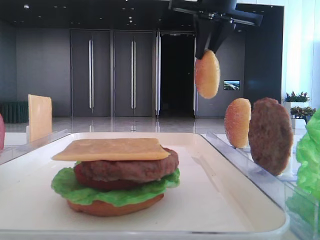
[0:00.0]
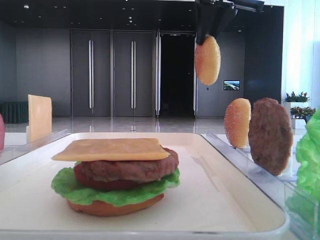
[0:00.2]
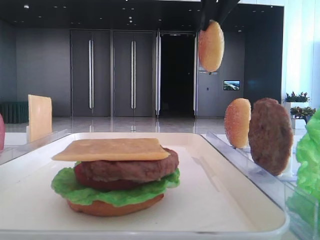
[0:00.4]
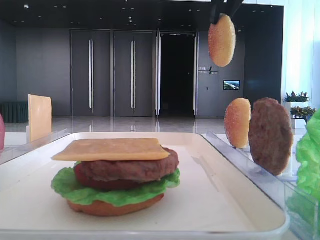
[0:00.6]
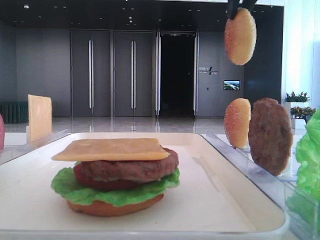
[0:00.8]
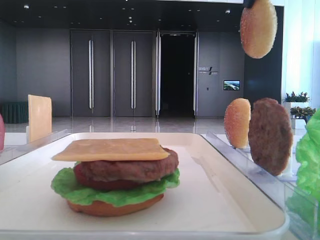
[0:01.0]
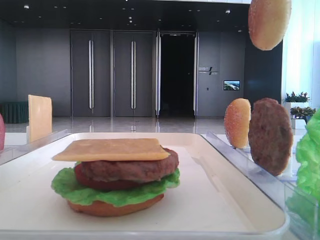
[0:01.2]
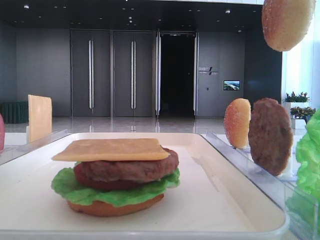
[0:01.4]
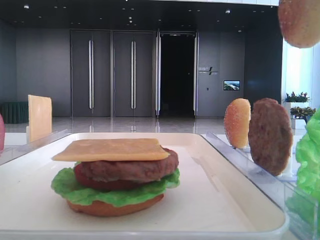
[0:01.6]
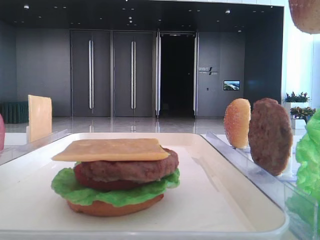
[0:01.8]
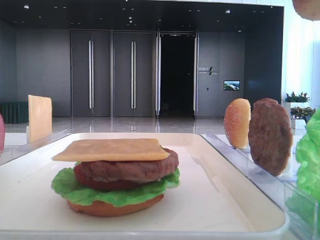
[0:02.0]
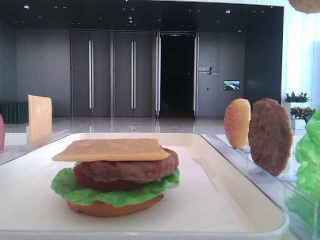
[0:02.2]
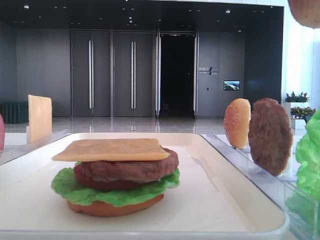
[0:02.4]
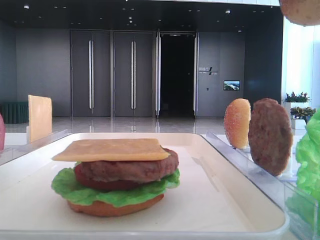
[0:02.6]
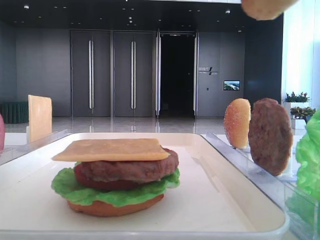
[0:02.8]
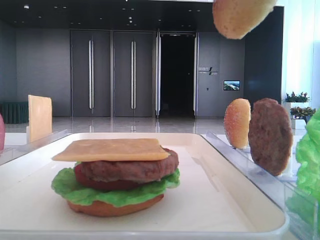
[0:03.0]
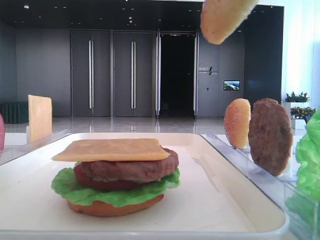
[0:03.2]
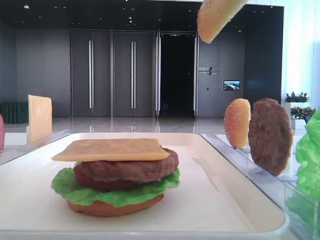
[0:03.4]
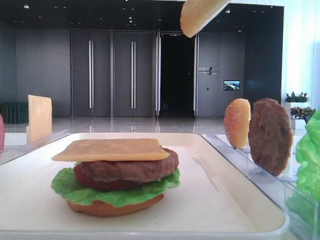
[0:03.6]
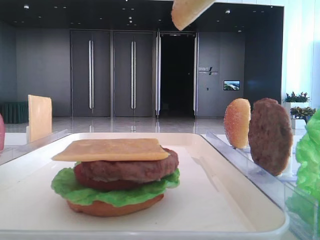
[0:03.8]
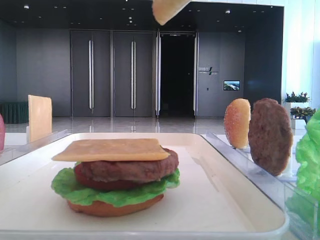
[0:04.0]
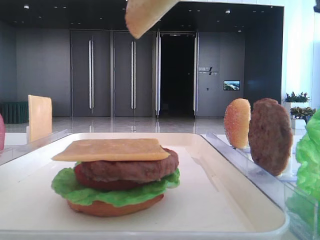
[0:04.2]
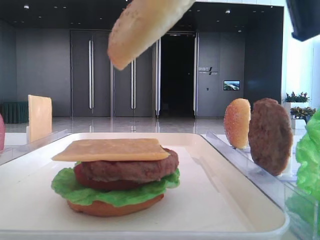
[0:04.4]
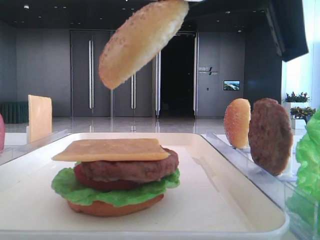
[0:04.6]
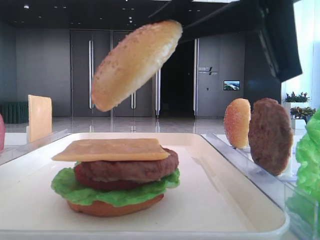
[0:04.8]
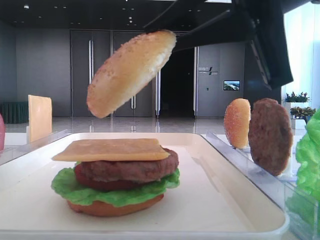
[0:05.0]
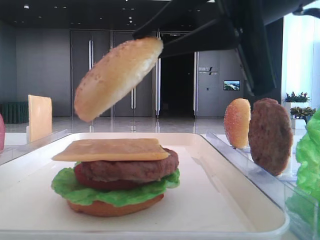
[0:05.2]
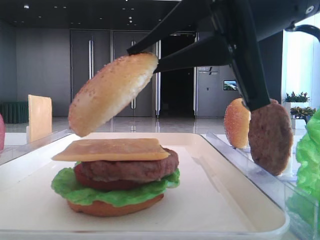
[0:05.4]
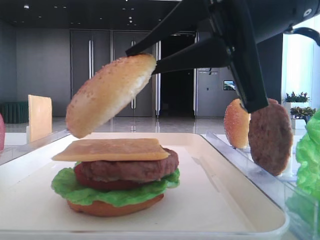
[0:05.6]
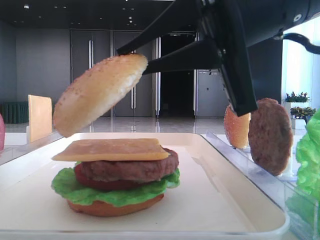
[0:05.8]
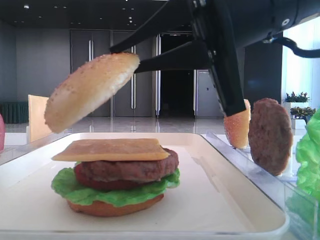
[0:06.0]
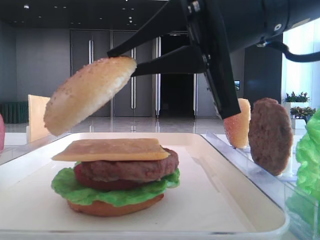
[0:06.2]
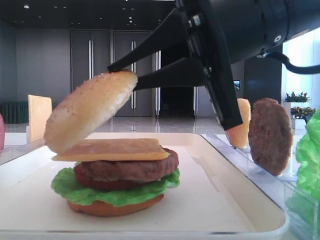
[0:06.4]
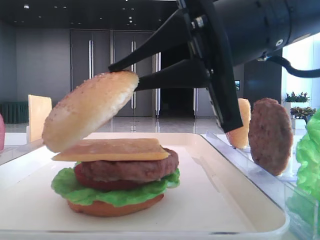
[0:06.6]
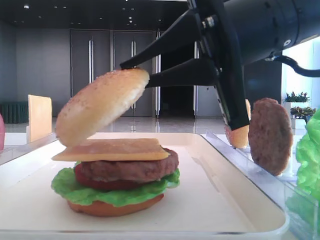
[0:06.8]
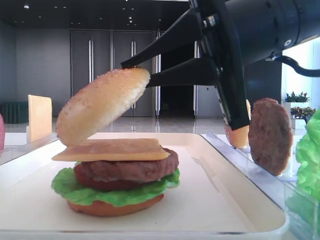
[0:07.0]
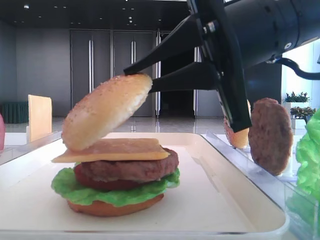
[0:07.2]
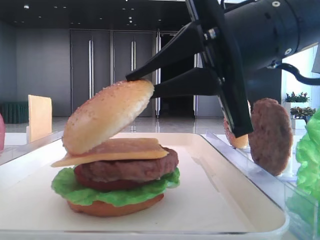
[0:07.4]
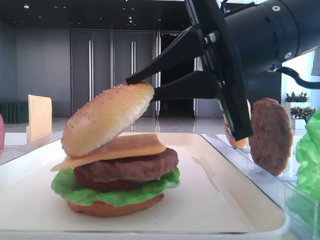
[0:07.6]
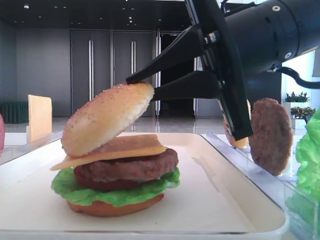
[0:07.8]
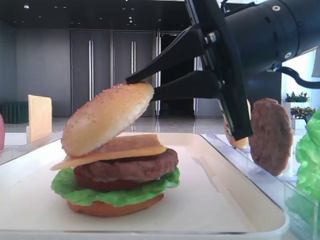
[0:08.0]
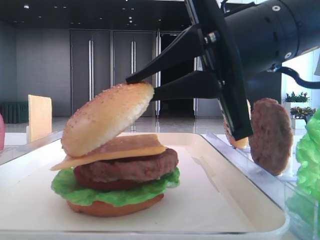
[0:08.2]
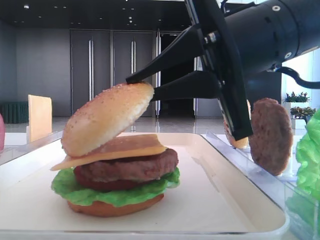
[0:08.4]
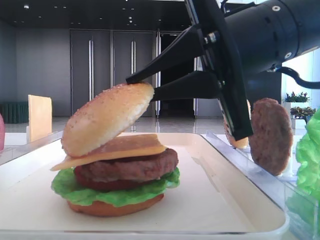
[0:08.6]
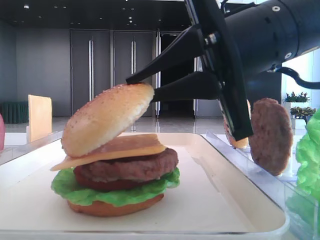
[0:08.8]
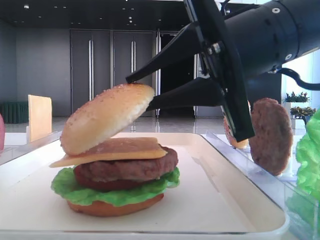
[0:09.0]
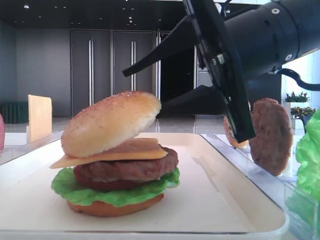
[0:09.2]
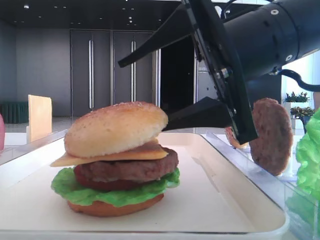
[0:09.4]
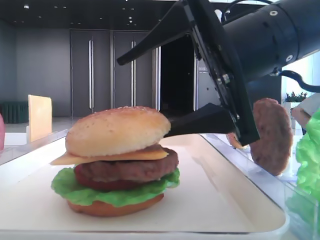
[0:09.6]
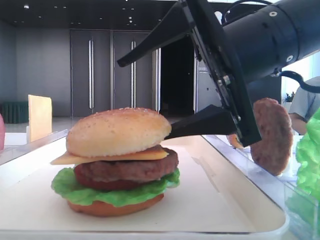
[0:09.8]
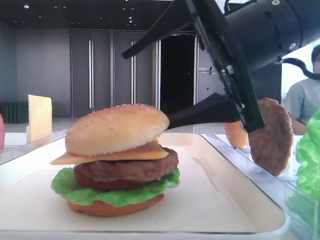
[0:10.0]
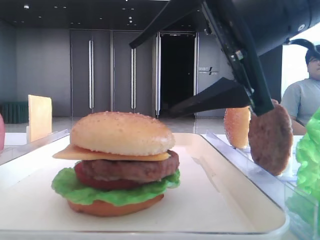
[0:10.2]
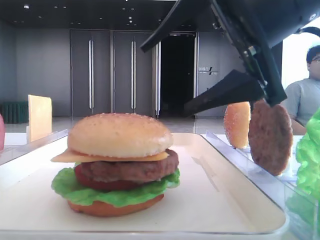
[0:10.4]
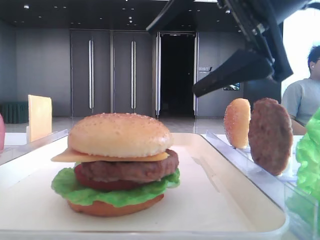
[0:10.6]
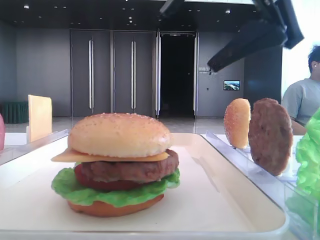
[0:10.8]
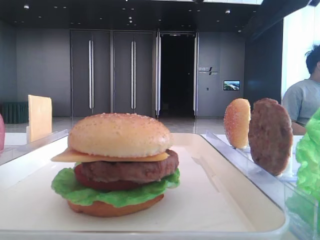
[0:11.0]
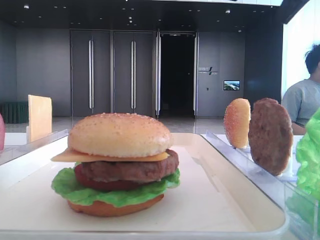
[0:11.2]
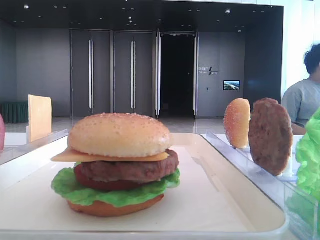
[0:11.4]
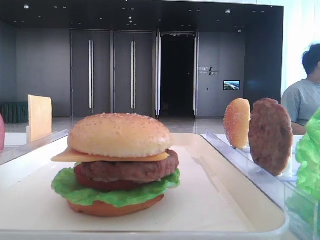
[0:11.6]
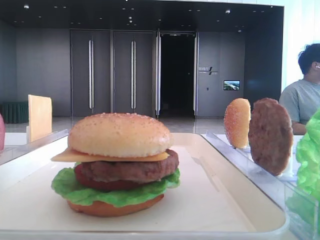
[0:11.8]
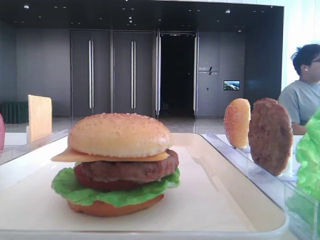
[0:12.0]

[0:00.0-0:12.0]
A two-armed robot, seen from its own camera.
Step, 0:00.0 to 0:10.4: Place the top bread slice on the cheese with the right hand.
0:00.0 to 0:01.6: The right gripper heads backward, covering some 20 cm.
0:01.6 to 0:03.0: The right gripper travels backward by about 10 cm.
0:03.0 to 0:04.4: The right gripper shifts about 10 cm downward.
0:04.4 to 0:06.0: The right gripper moves downward, roughly 5 cm.
0:06.0 to 0:07.6: There are only small adjustments of the grippers.
0:07.6 to 0:09.0: Both grippers stay about where they are.
0:09.0 to 0:10.4: The right gripper opens.
0:10.4 to 0:12.0: The right gripper shifts about 25 cm to the right and upward.

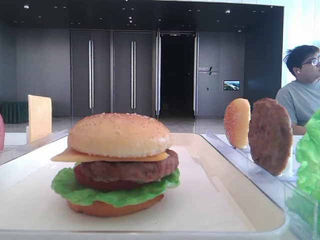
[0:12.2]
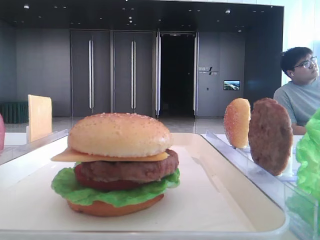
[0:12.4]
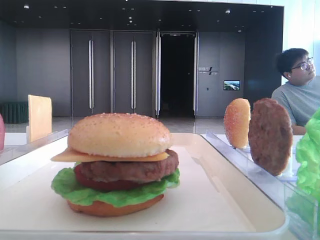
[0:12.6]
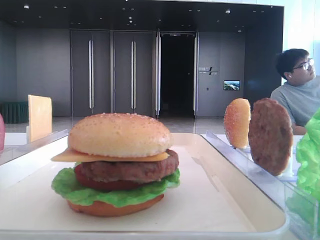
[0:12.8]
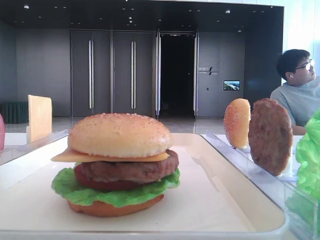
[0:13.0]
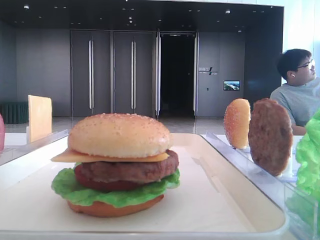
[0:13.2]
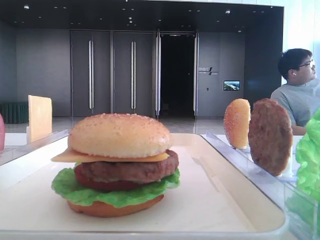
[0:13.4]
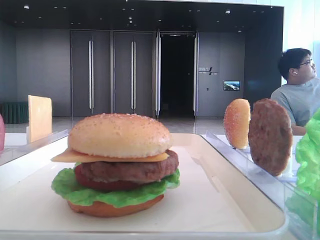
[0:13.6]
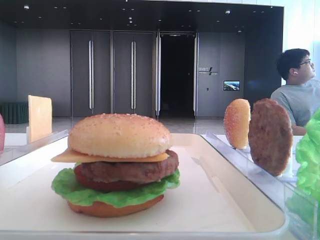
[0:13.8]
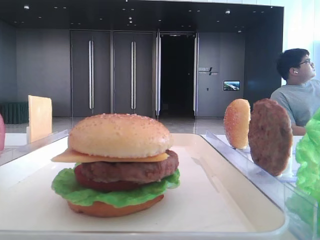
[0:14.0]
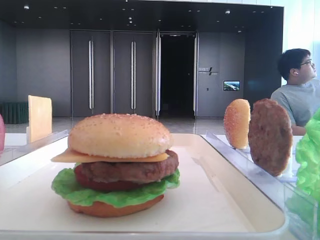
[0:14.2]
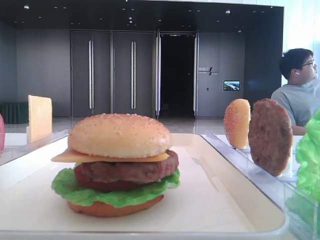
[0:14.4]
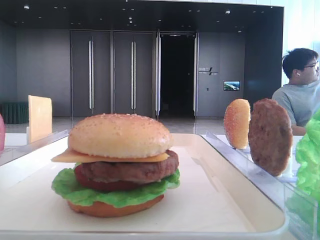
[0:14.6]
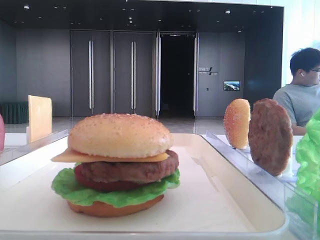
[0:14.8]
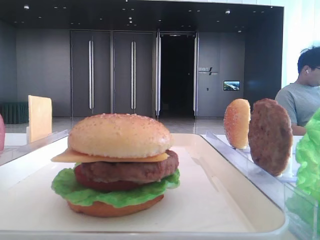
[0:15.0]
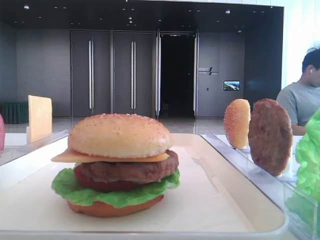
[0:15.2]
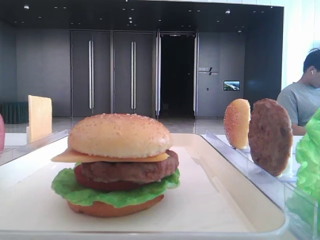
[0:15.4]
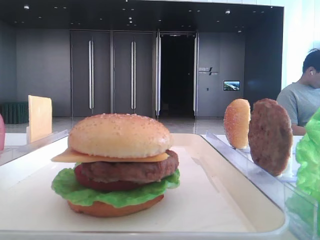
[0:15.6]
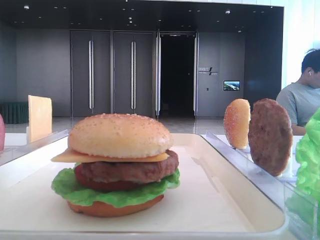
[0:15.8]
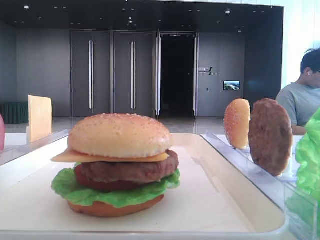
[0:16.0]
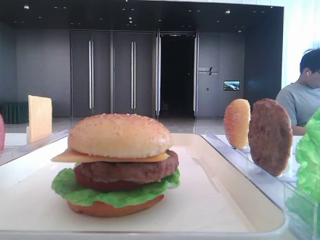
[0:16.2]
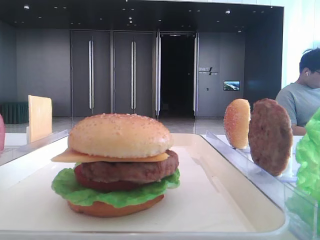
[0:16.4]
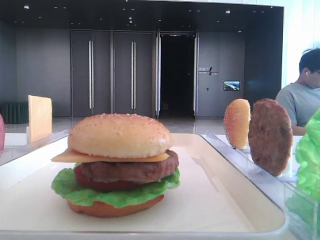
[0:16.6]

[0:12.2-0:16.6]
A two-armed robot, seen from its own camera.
0:12.2 to 0:13.6: The right gripper goes about 25 cm backward.
0:13.6 to 0:15.2: The right gripper travels downward by roughly 15 cm.
0:15.2 to 0:16.6: Neither gripper changes place.

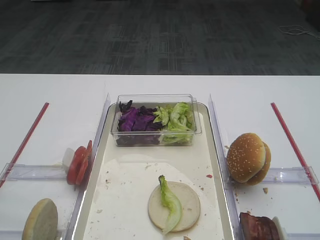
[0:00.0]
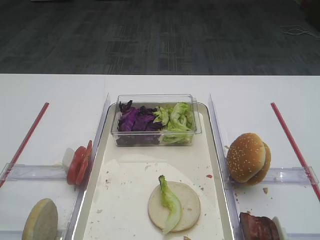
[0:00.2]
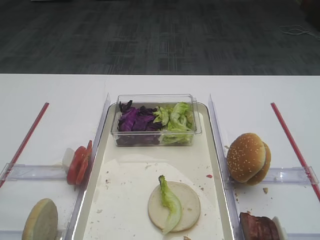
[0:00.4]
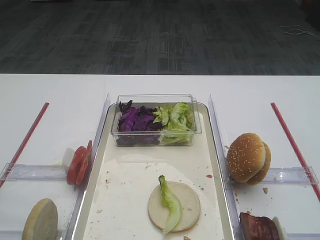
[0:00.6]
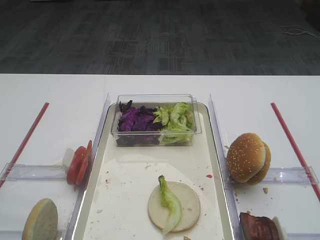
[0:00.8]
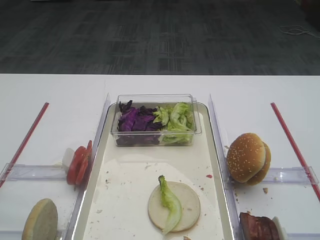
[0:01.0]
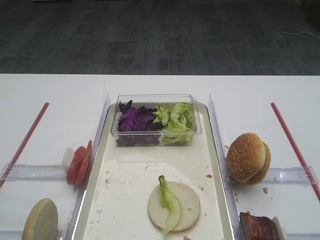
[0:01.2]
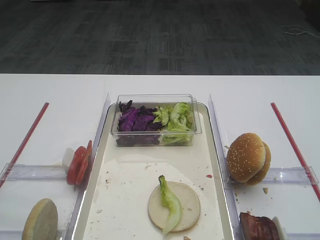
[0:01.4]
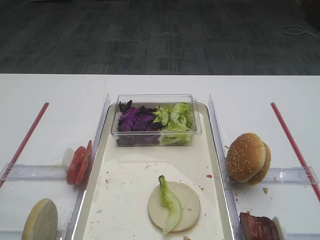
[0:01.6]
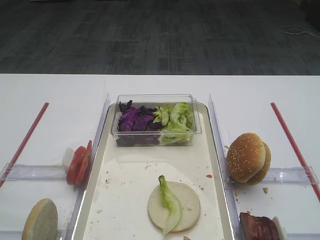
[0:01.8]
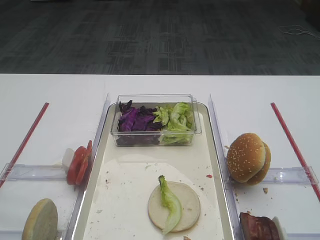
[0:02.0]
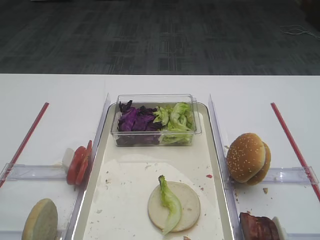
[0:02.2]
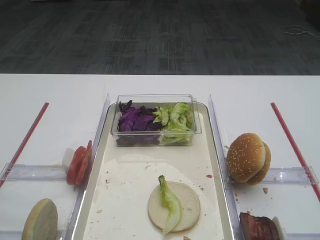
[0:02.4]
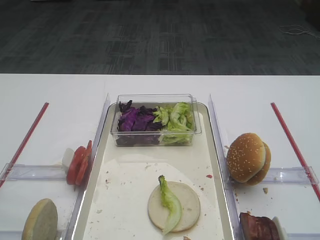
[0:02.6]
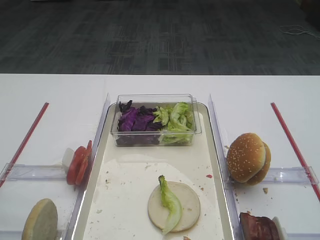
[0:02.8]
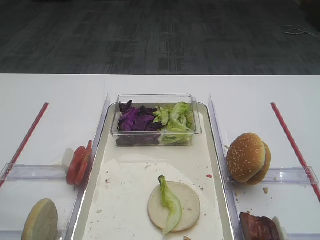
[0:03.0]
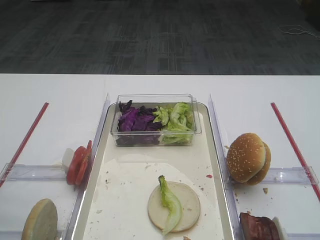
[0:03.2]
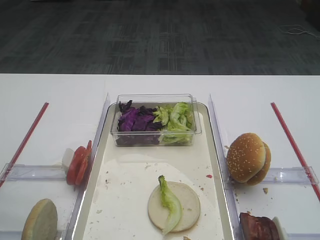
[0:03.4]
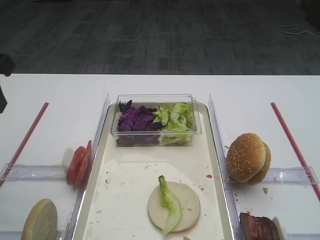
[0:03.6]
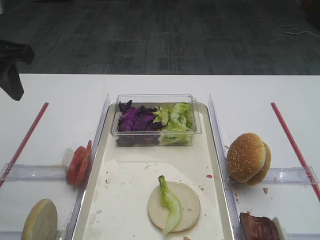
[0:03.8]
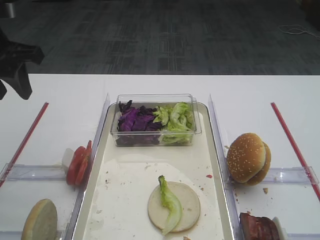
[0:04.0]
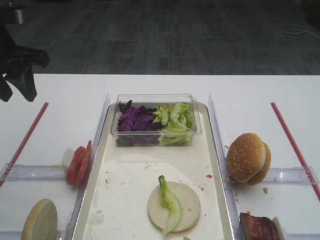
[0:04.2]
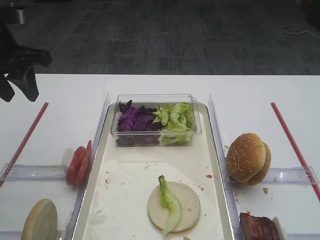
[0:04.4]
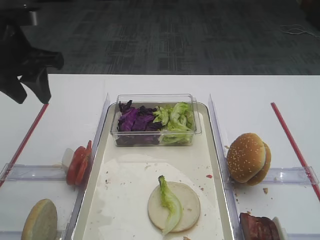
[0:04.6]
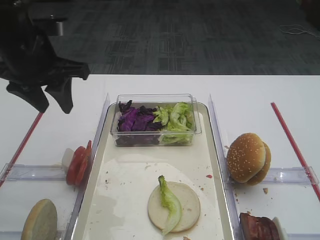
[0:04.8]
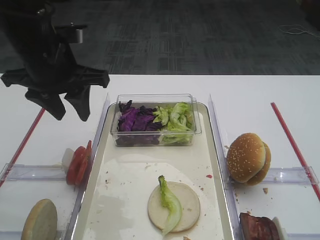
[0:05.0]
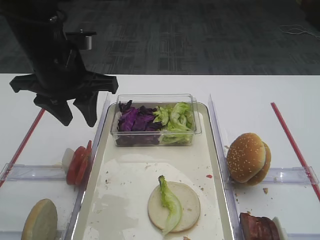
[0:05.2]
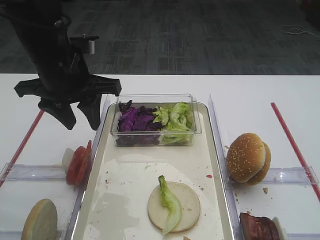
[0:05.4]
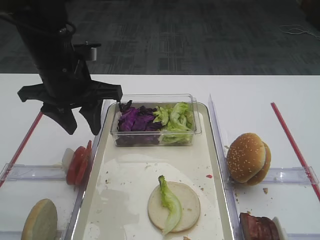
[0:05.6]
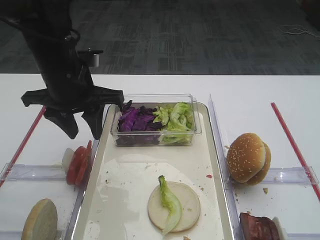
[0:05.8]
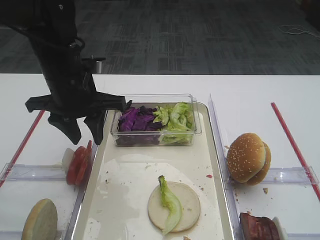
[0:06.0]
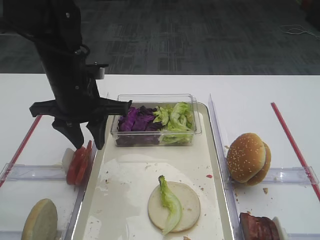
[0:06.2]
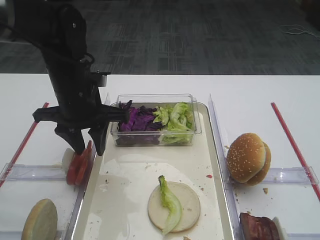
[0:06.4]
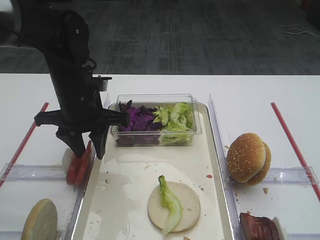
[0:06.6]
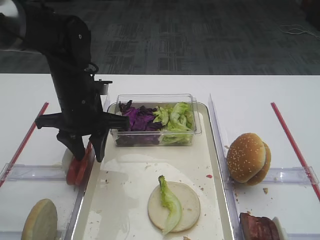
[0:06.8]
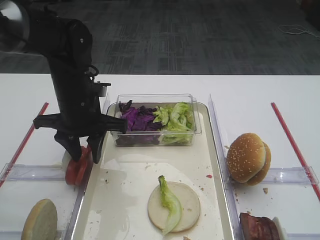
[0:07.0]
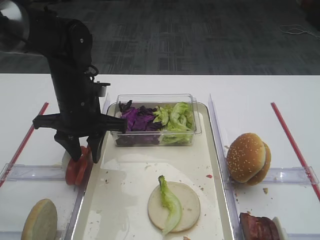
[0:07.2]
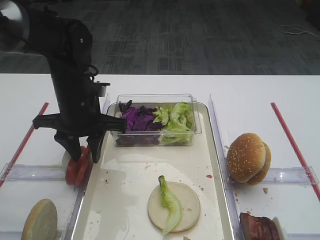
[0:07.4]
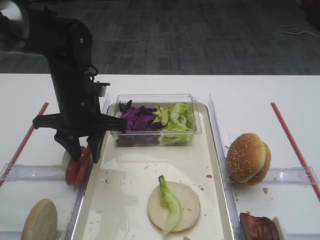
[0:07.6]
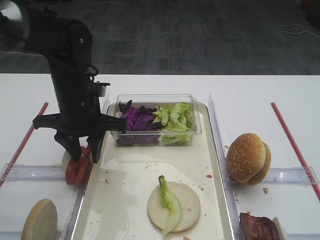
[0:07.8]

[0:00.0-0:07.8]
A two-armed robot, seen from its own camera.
0:03.2 to 0:04.6: The left gripper moves forward, about 20 cm.
0:04.6 to 0:06.2: The left gripper is displaced to the right and downward by roughly 10 cm.
0:06.2 to 0:07.8: The grippers move only a little.
